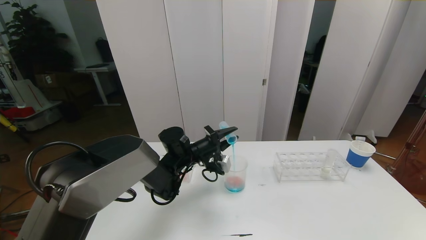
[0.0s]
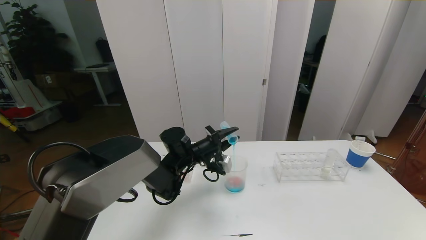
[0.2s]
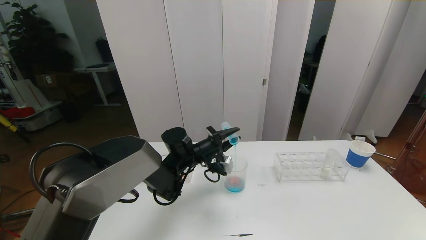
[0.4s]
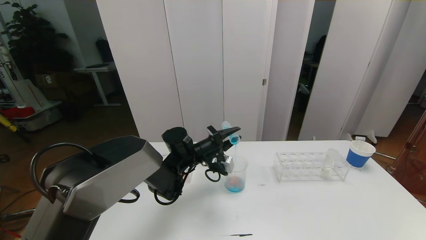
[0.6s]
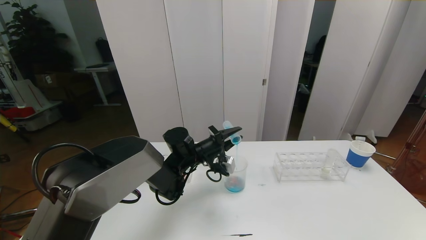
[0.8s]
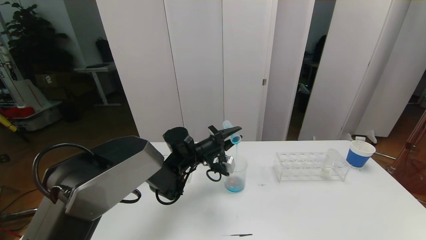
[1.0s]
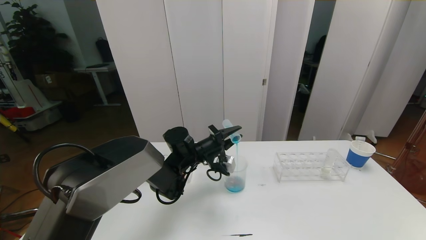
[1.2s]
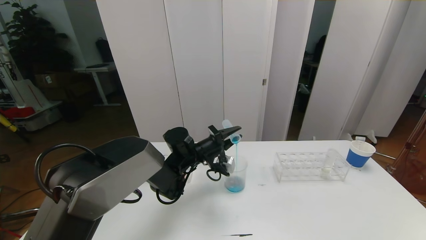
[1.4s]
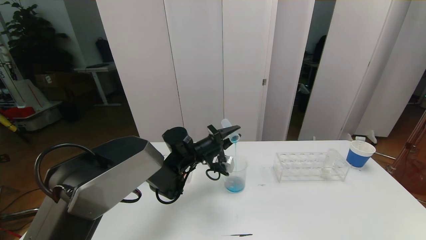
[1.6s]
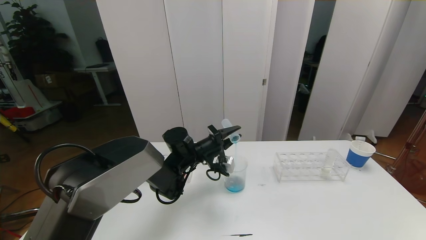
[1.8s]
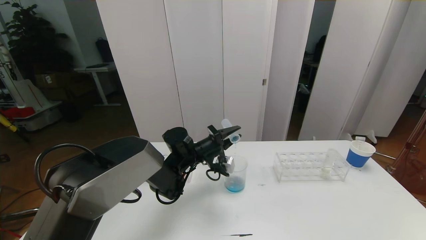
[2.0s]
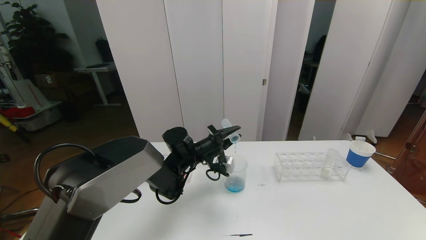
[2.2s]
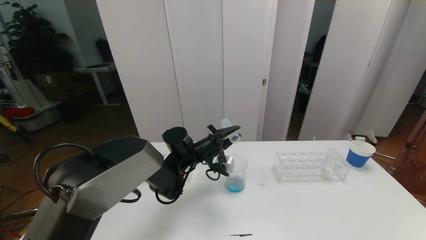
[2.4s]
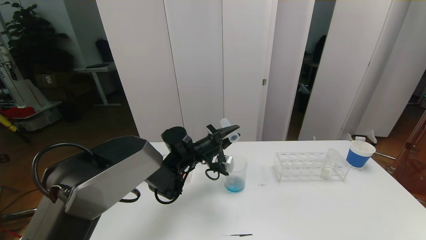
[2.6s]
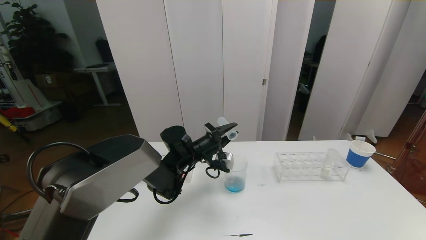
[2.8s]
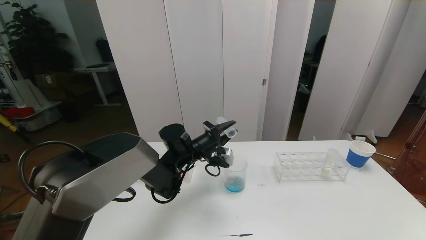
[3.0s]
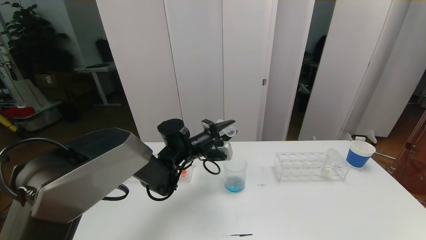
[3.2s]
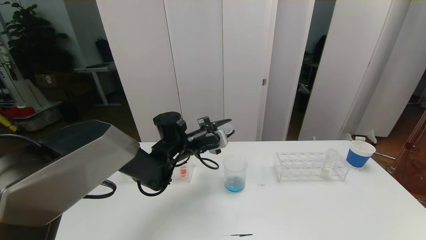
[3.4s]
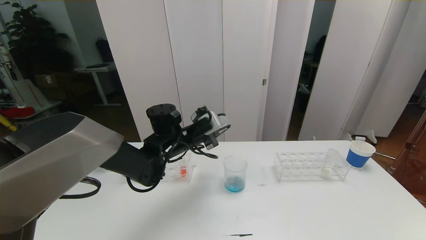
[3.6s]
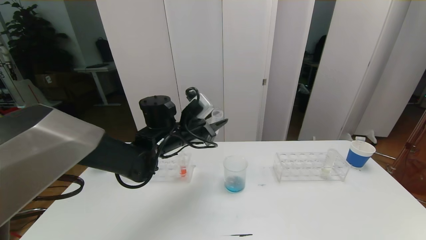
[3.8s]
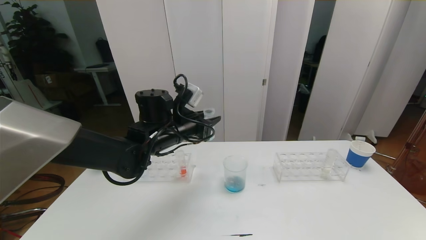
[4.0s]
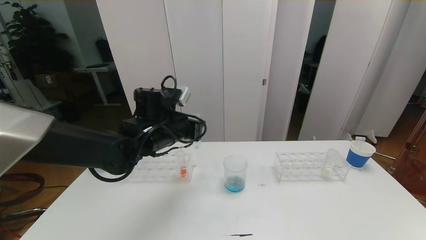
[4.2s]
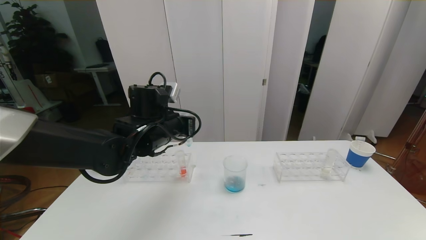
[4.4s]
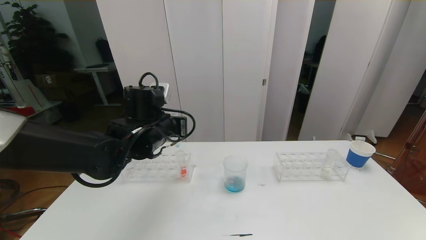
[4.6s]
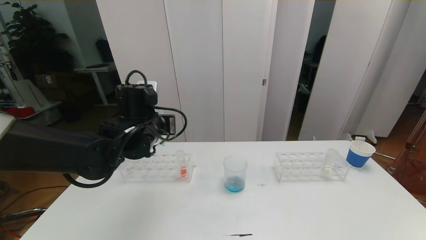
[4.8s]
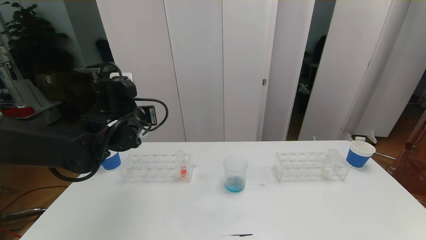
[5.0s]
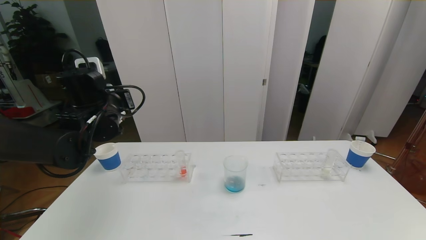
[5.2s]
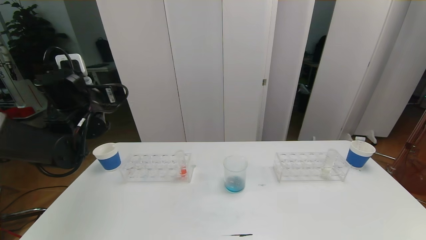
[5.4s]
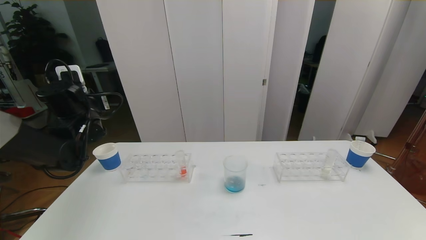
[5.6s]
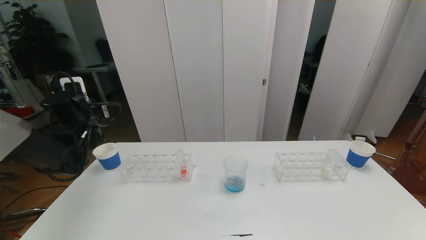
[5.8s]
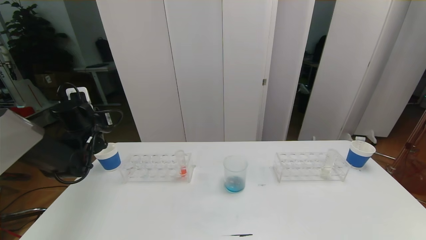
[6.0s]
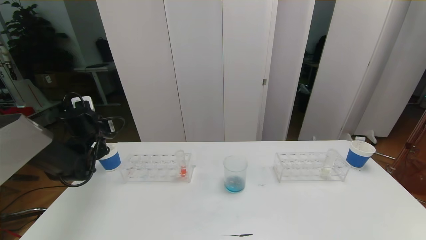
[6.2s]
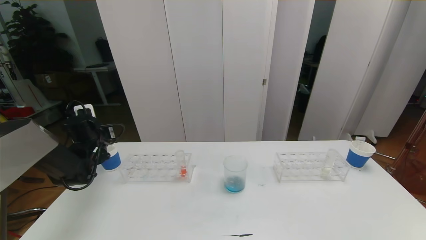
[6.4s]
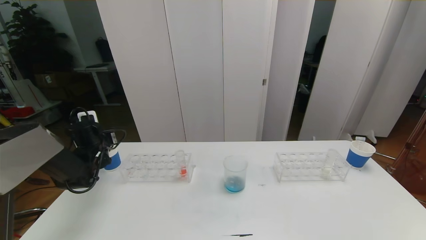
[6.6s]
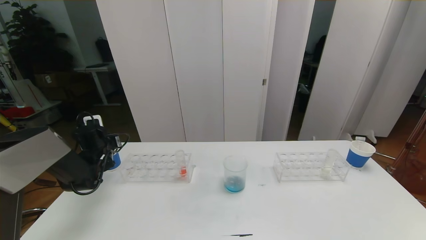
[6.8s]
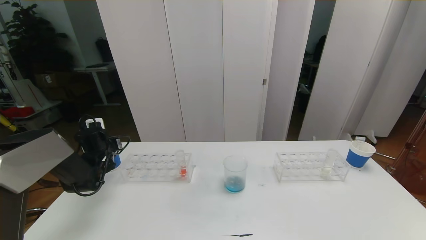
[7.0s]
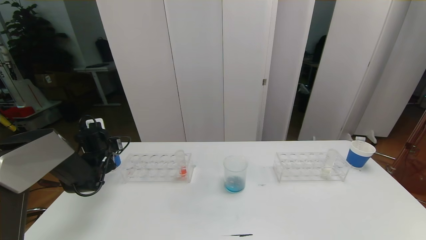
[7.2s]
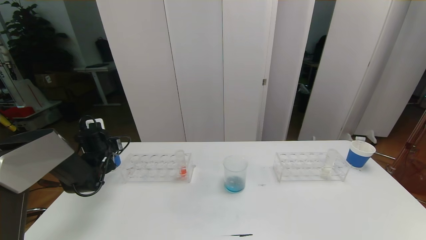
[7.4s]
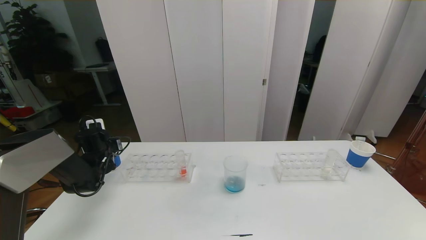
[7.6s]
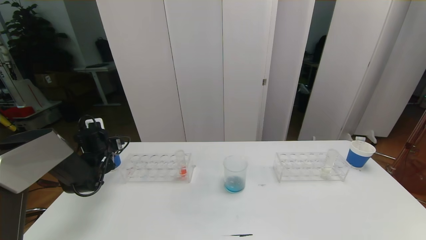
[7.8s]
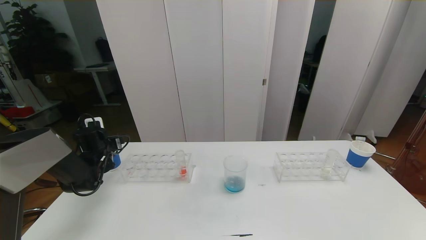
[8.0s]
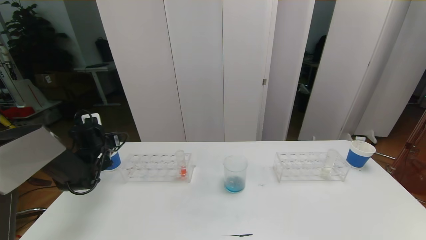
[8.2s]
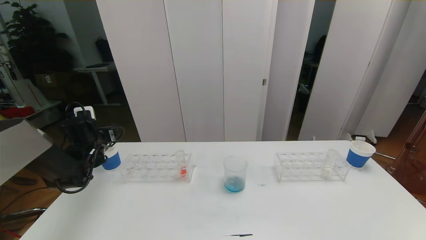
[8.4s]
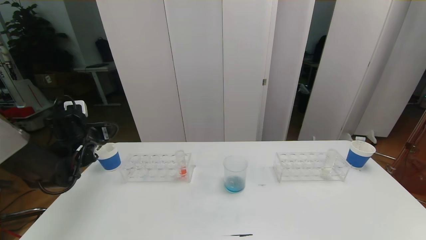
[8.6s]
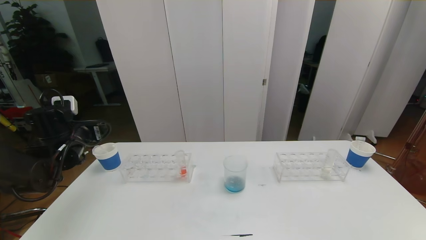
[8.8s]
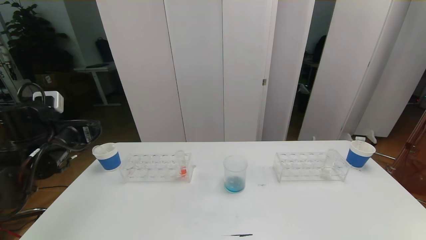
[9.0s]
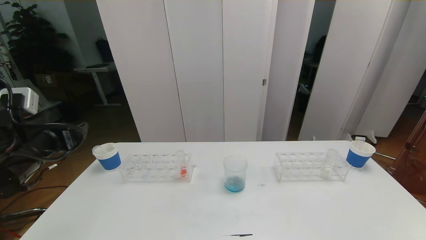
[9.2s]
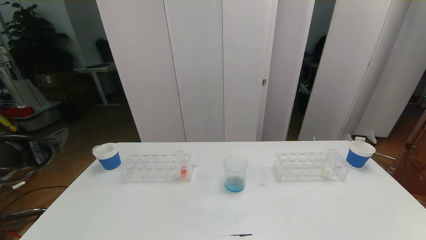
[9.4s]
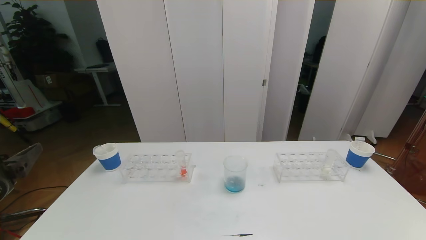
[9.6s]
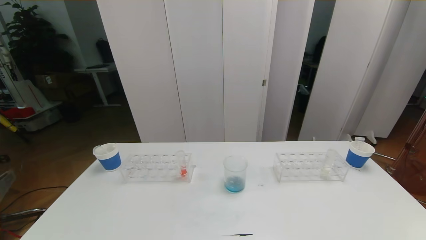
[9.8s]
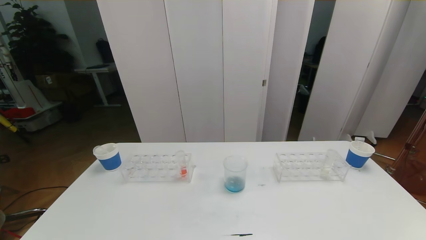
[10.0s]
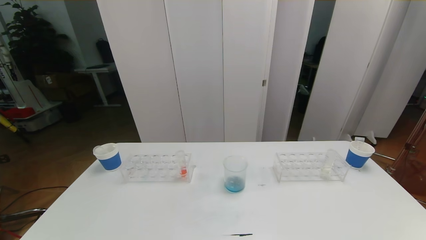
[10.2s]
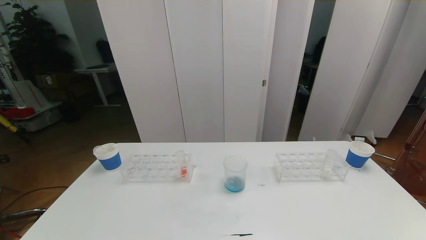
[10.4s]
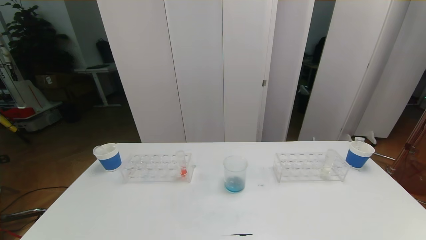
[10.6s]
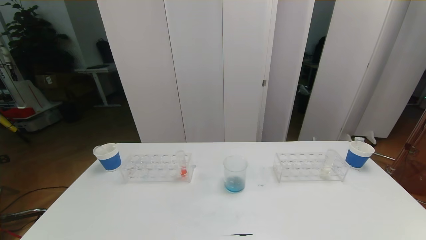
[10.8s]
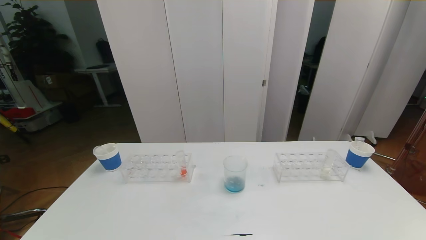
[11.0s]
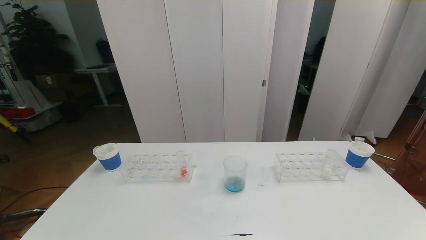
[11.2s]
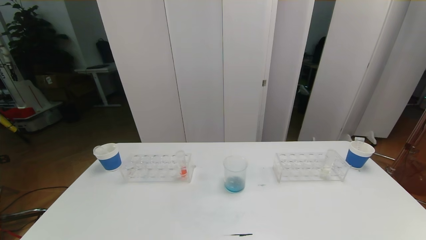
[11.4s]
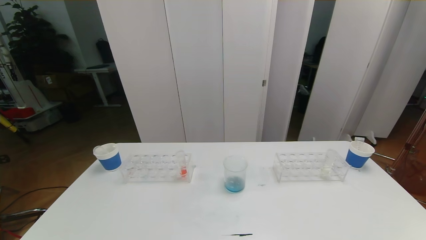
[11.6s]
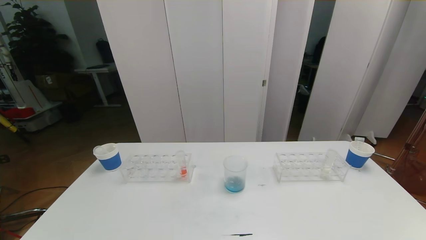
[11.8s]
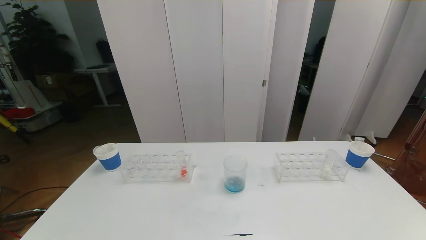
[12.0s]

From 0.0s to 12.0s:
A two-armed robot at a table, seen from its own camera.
Task of the whole recording: pick up the test tube with red pigment the test tube with blue pigment and the test tube with white pigment by grippers and pour them into the beaker.
From 0.0s to 1.6s: Both grippers stay put.
From 1.6s to 3.0s: The grippers make only small movements.
From 3.0s to 4.4s: The left gripper moves upward, backward and to the left, some 15 cm.
From 4.4s to 6.0s: The left gripper is displaced to the left by roughly 20 cm.
From 6.0s to 7.6s: The left gripper goes some 10 cm downward.
From 7.6s to 9.0s: The left gripper moves backward and upward, roughly 20 cm, and opens.
From 9.0s to 10.4s: The left gripper is displaced backward by roughly 35 cm.

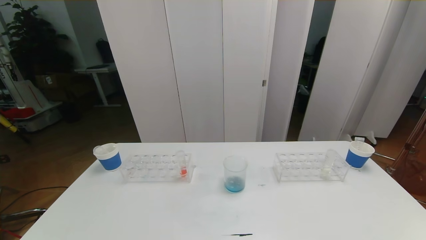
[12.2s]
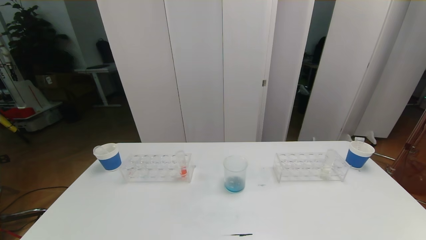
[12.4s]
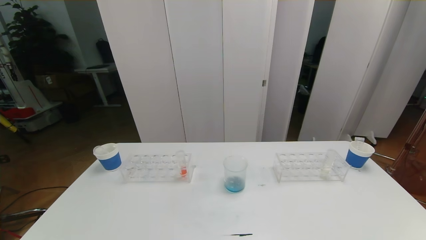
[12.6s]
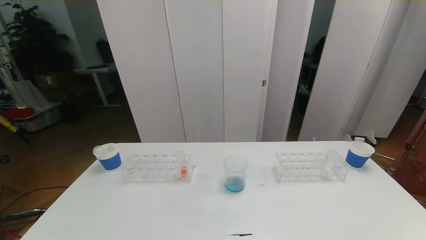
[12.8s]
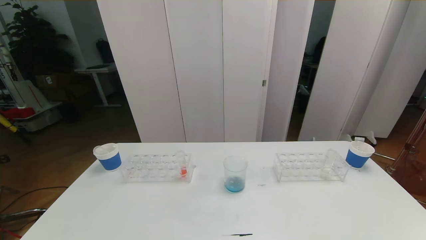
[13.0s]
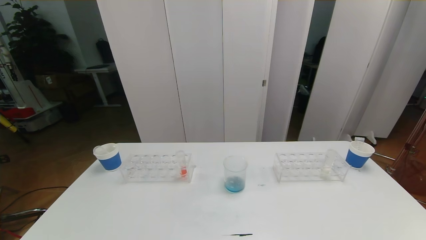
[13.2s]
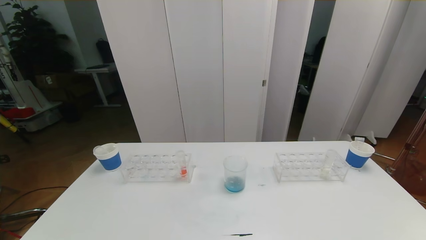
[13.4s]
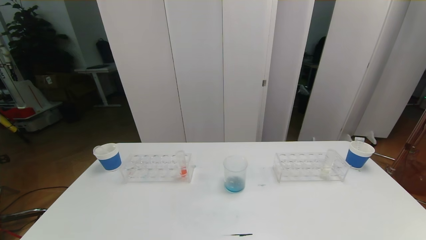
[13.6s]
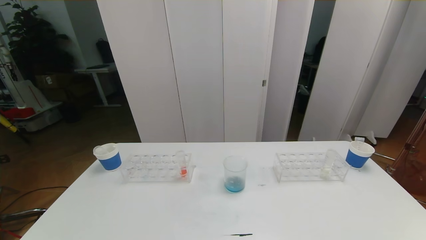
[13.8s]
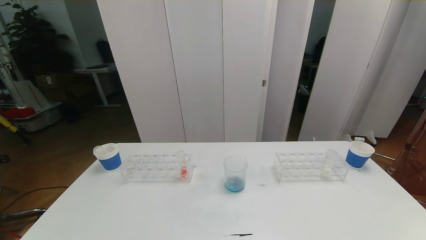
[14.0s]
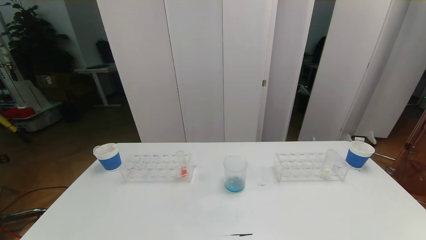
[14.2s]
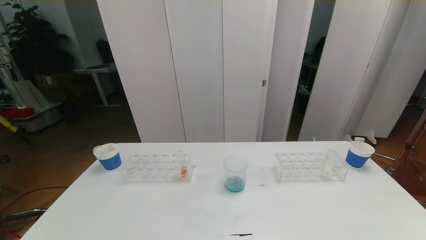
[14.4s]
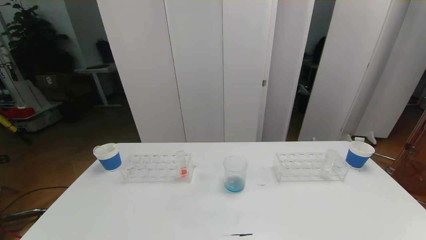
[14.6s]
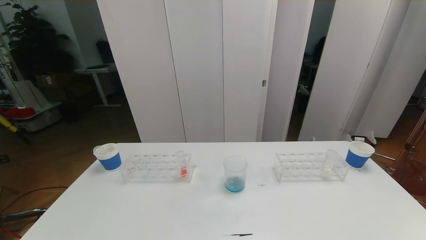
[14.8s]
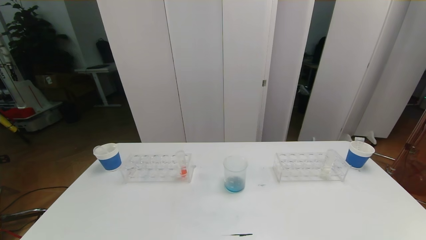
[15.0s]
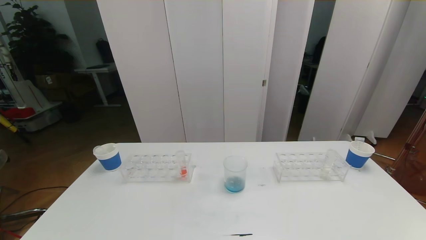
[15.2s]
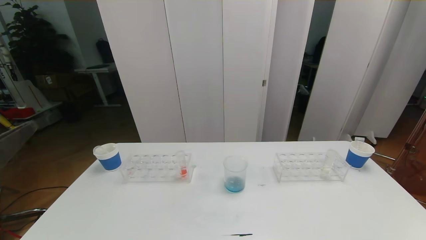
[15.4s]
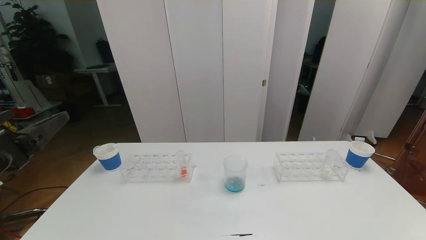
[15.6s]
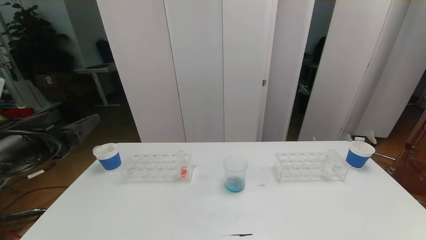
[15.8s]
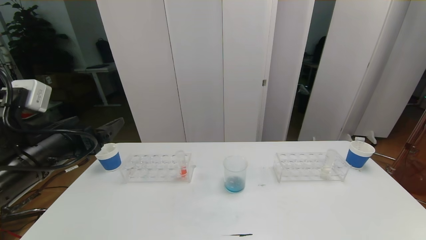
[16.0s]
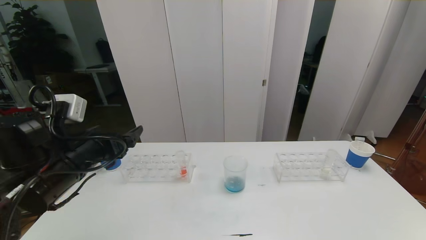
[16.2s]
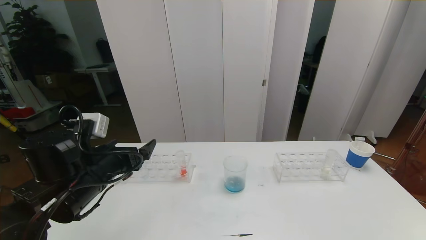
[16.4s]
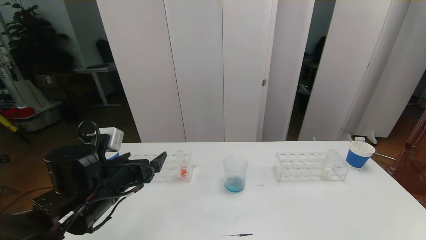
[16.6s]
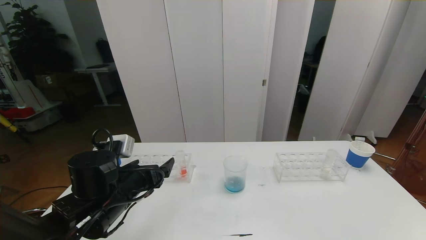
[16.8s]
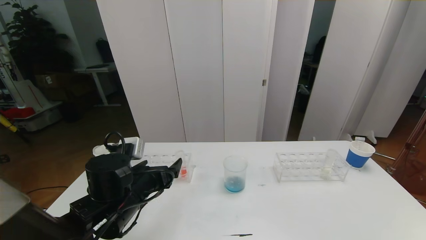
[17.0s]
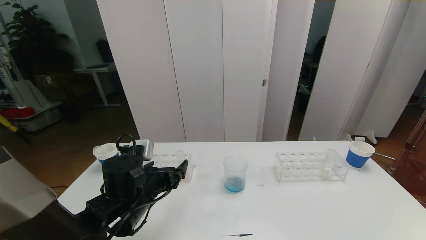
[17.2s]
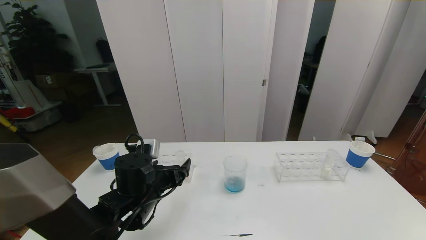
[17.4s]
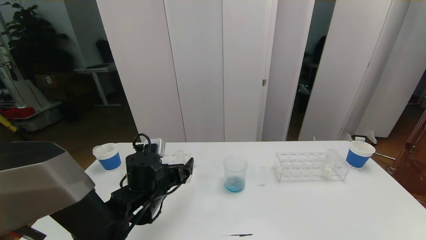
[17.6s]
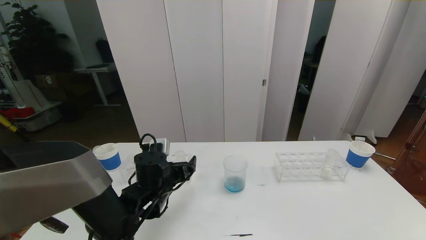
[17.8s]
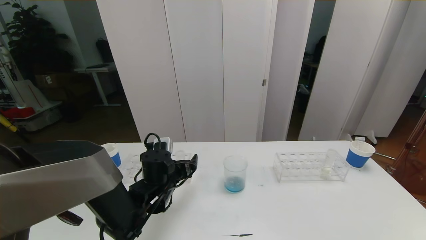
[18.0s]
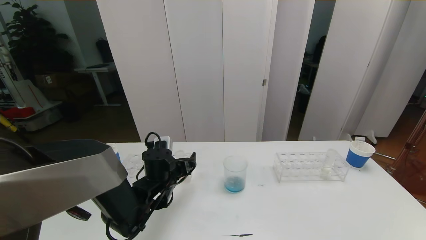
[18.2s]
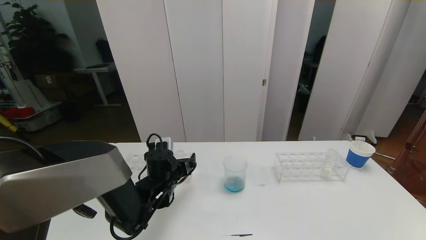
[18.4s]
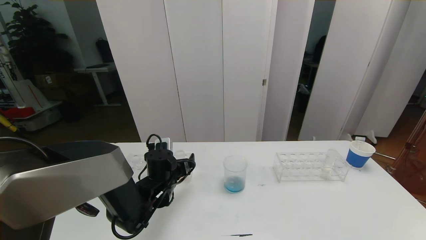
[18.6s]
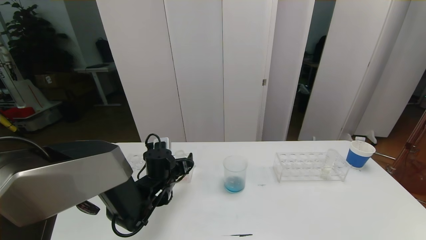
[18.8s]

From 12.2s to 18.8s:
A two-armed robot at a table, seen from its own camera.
Task of the whole recording: pick up the test tube with red pigment the test tube with blue pigment and the test tube with white pigment by grippers and pour them into the beaker.
From 12.2s to 13.8s: The two grippers keep their place.
From 15.4s to 17.2s: The left gripper heads downward, forward and to the right, covering some 25 cm.
From 17.2s to 18.8s: The left gripper is displaced forward and downward by roughly 10 cm.
